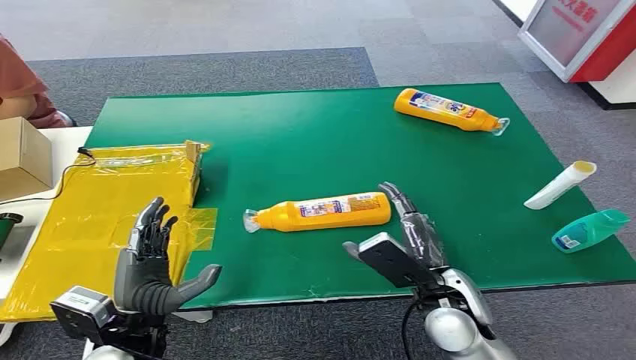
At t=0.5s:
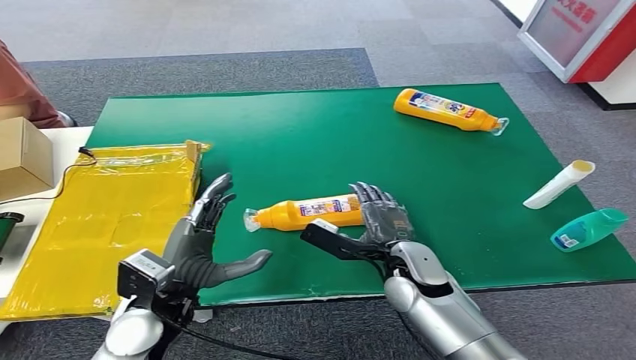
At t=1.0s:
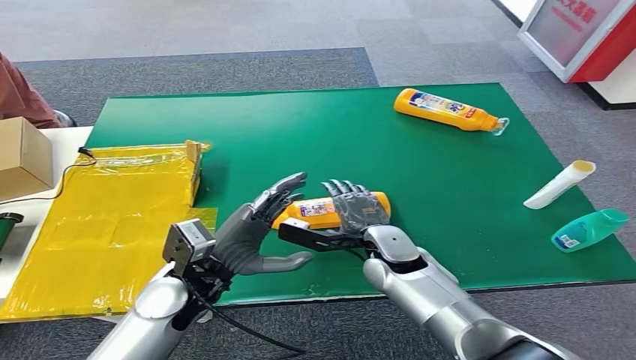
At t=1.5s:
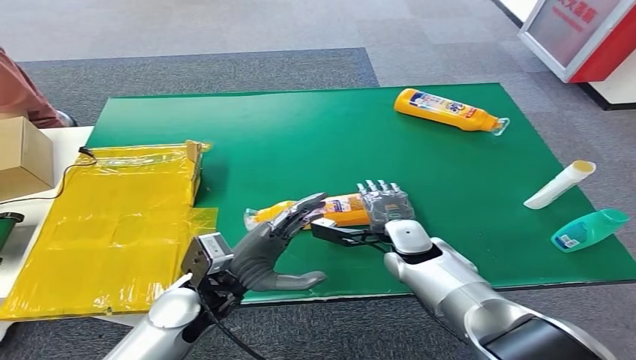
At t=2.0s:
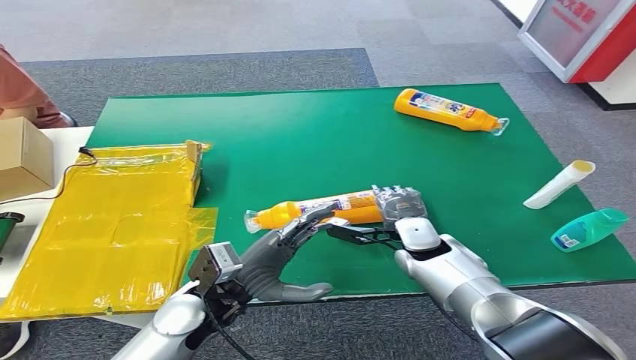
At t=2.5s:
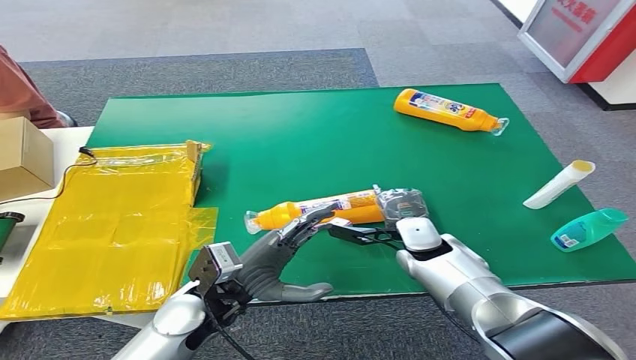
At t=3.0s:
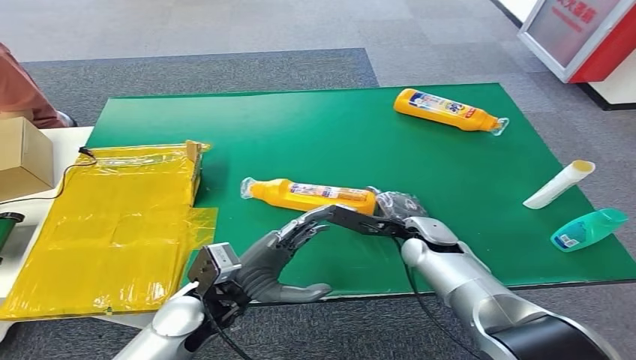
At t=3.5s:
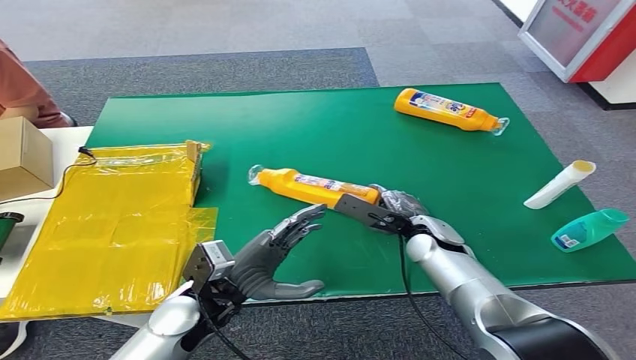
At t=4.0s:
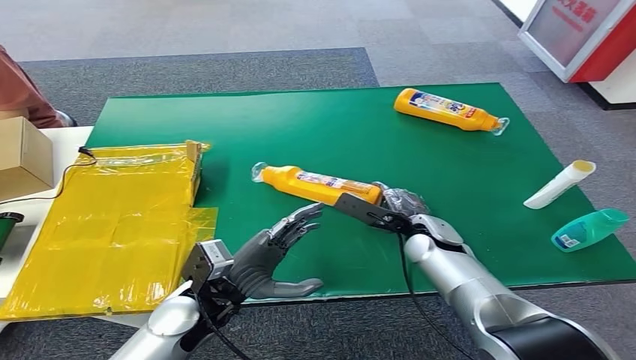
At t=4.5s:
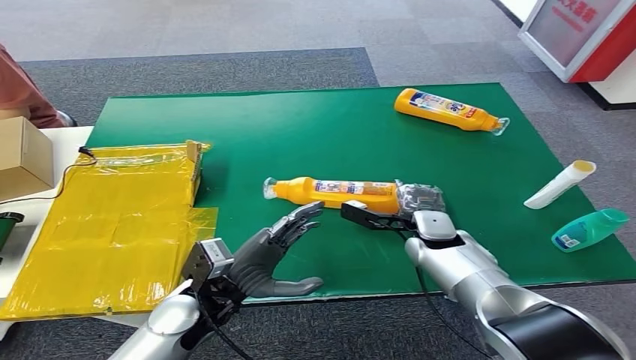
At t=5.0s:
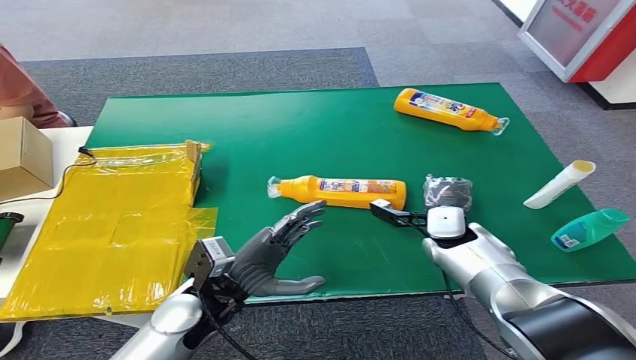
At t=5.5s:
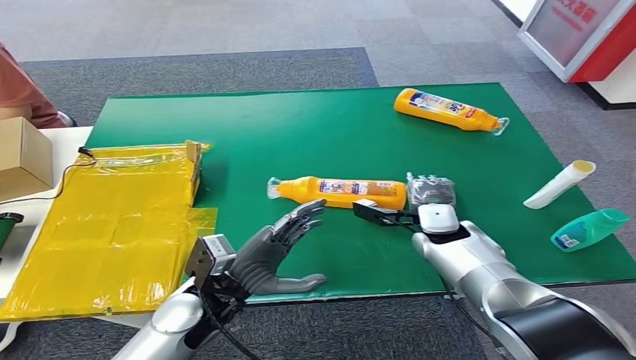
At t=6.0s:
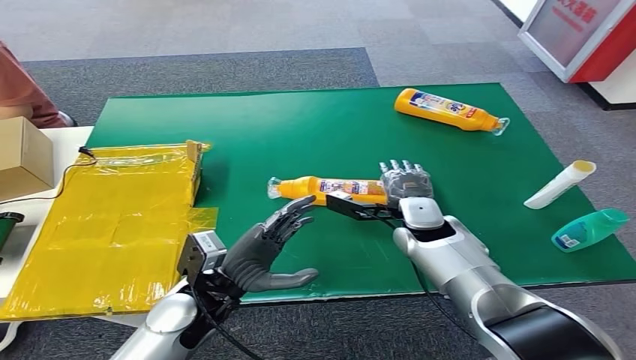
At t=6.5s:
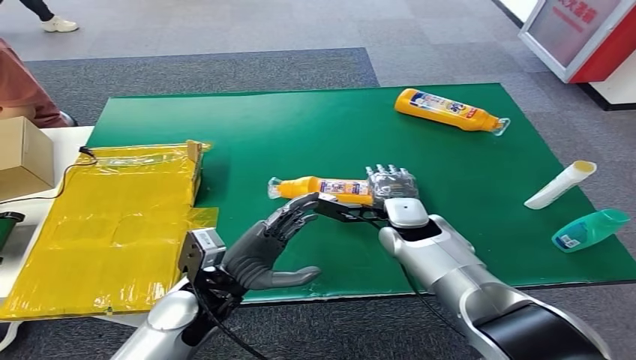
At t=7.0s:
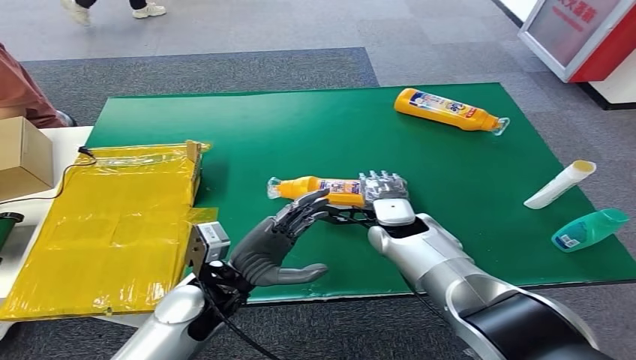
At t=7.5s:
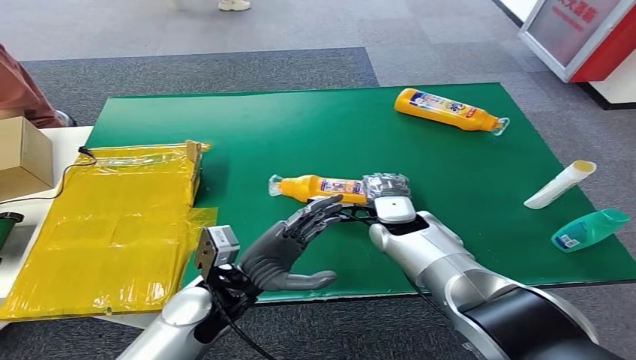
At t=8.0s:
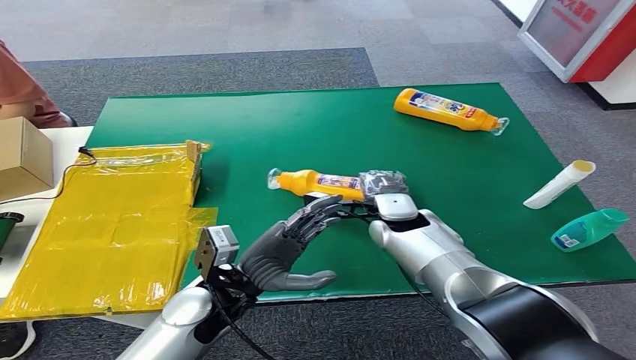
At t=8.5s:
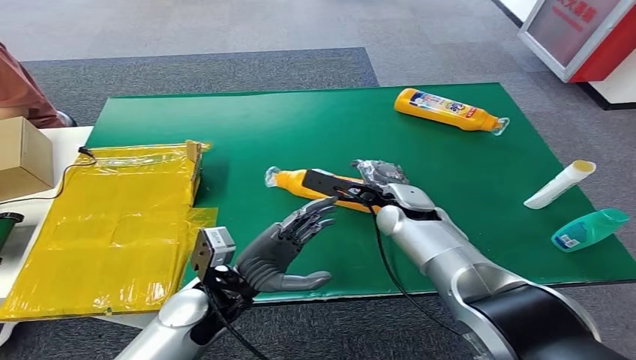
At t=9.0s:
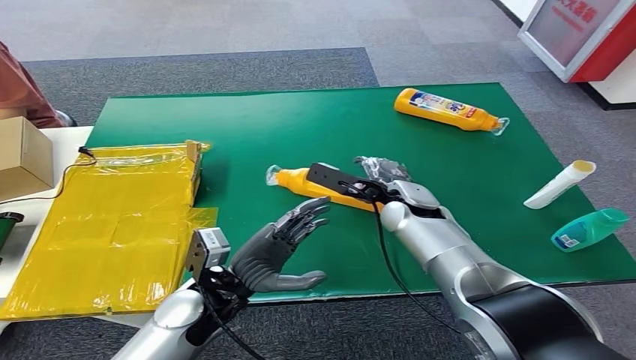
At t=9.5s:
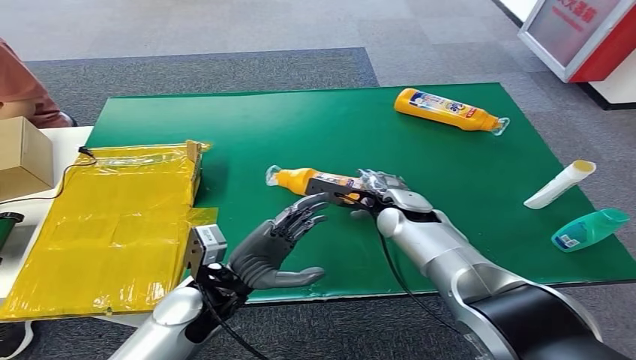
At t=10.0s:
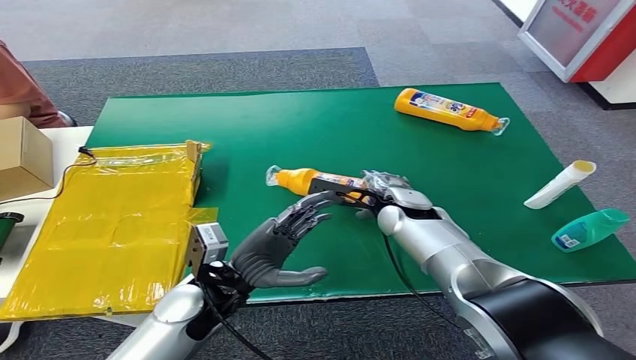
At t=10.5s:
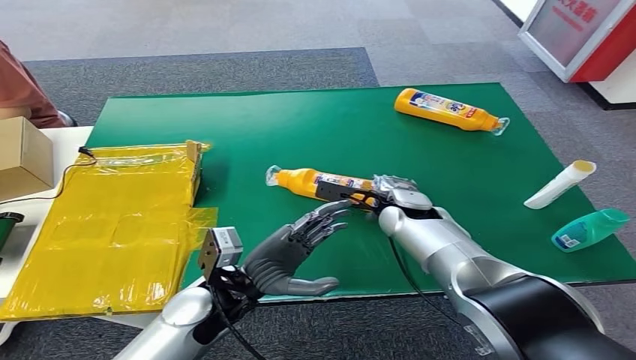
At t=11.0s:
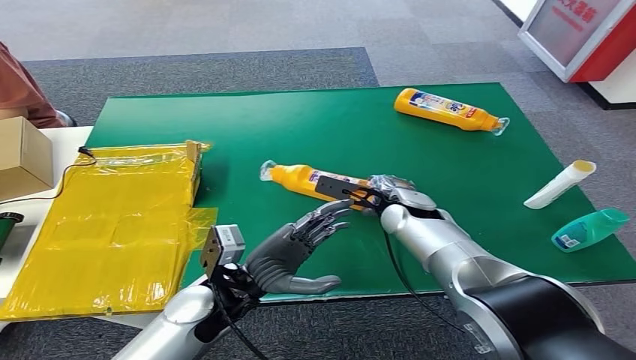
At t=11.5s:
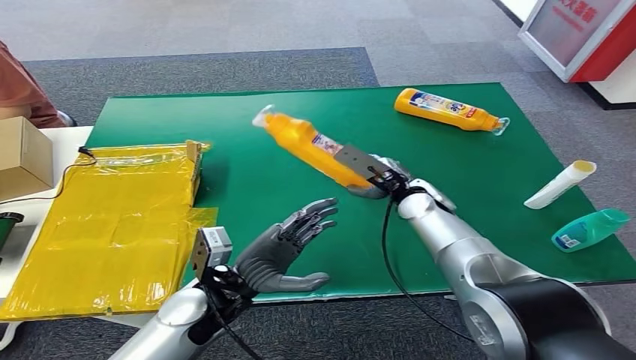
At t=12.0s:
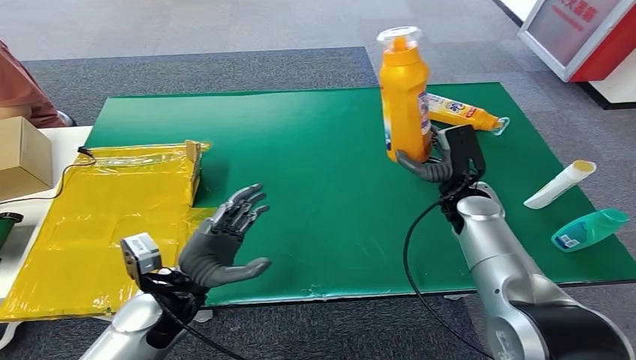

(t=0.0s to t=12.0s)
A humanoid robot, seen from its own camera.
t=4.0s - t=6.0s: The right hand ends up roughly 5 cm from where it was.
t=6.0s - t=8.0s: The hands make only small movements.

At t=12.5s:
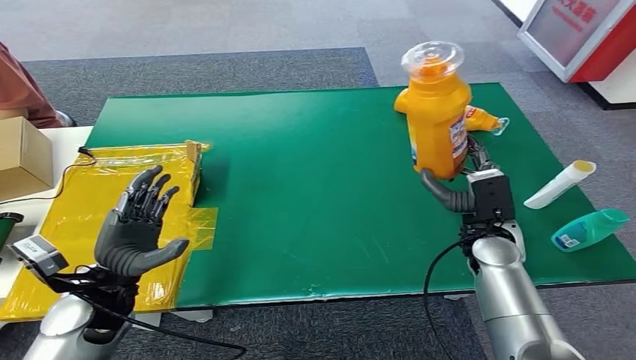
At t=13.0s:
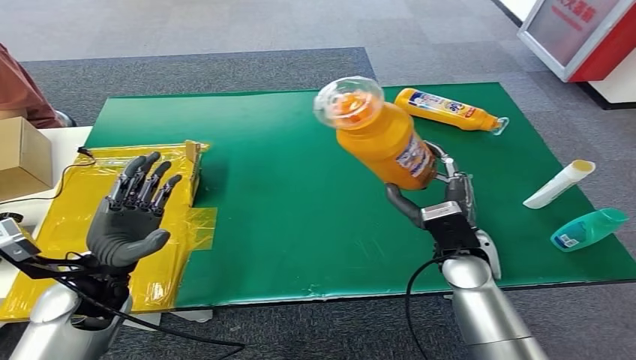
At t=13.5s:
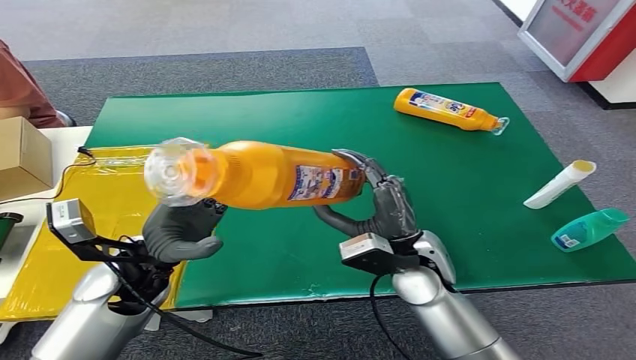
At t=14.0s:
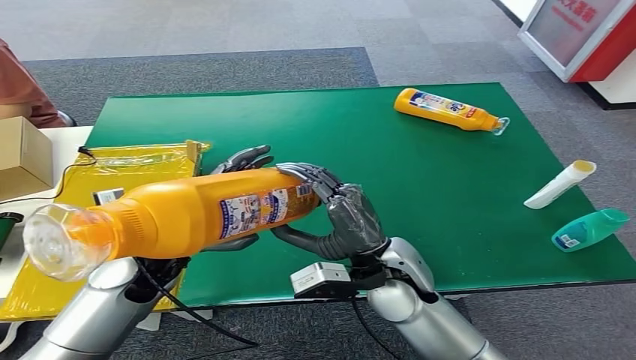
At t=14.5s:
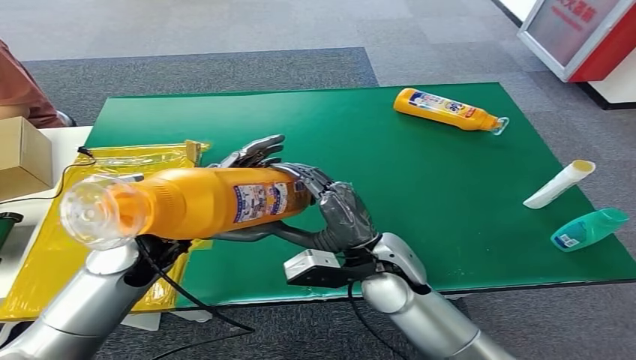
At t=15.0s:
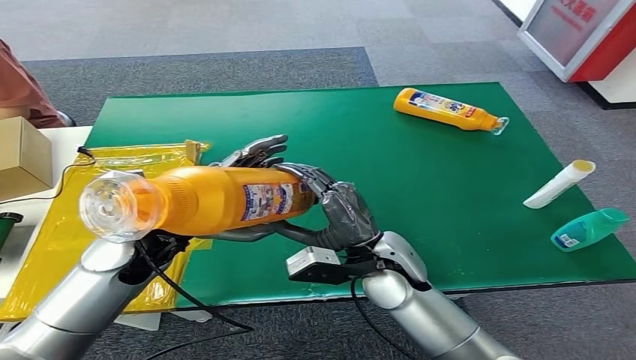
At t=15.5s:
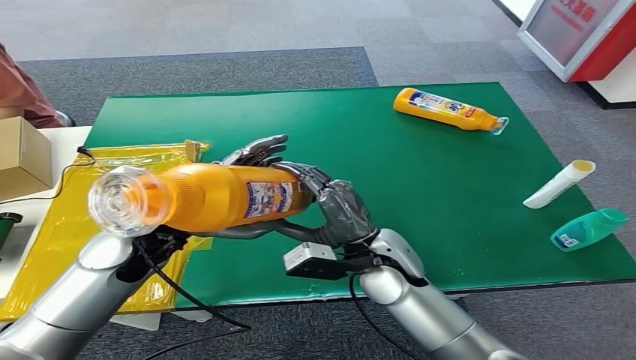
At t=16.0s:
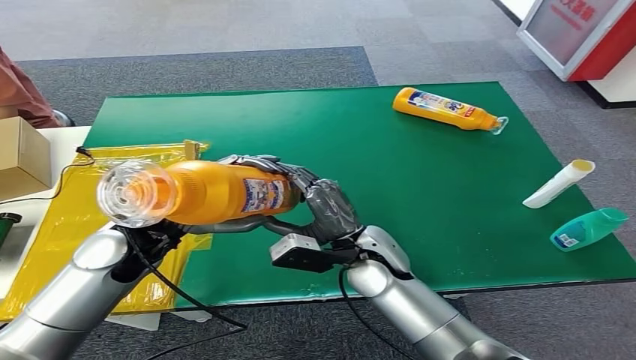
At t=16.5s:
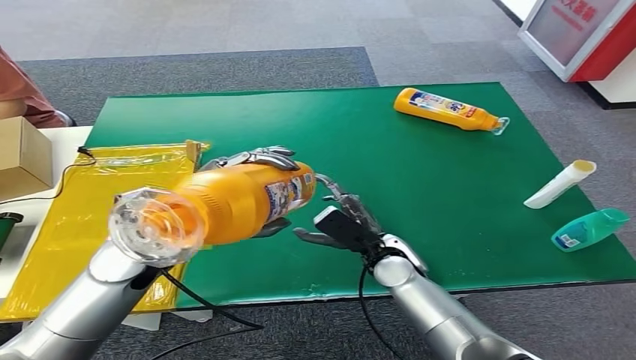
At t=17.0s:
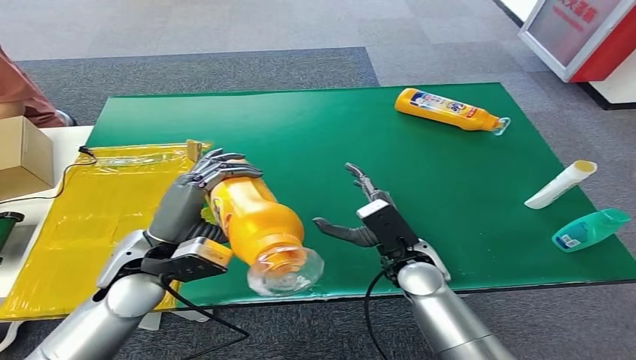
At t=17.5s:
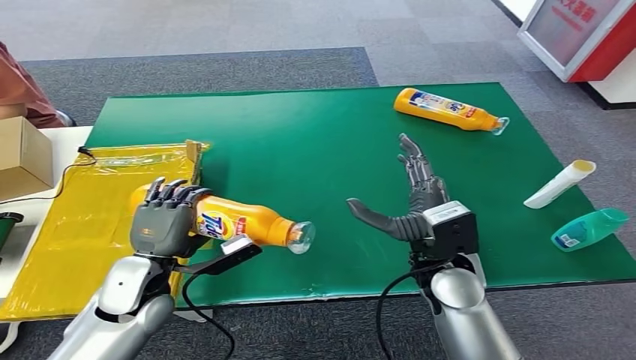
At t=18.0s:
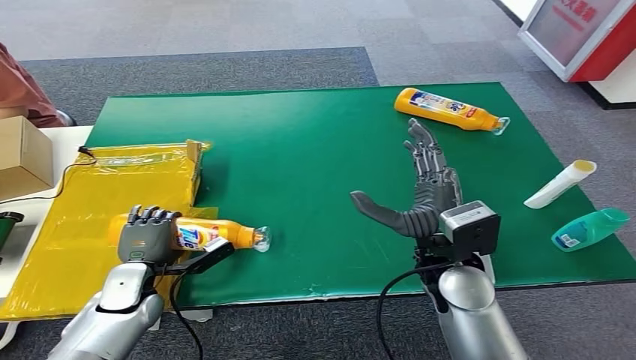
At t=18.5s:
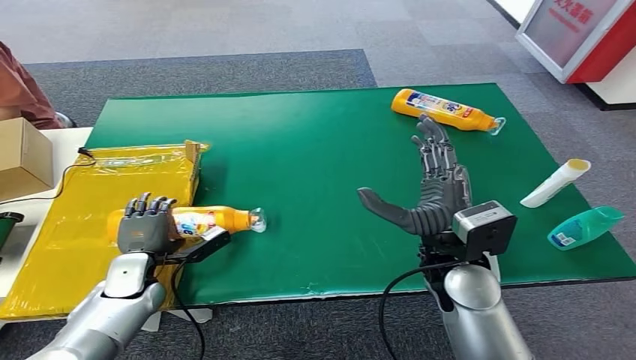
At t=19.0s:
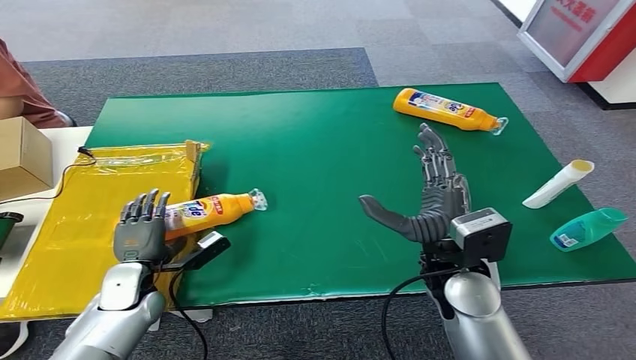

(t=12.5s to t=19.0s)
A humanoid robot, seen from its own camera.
Step, t=12.5s - t=19.0s: Turn the bottle to the front side.

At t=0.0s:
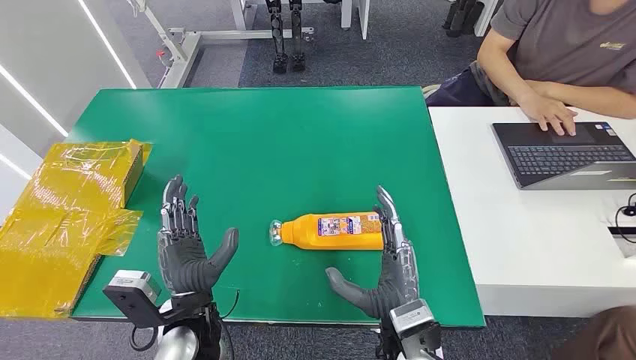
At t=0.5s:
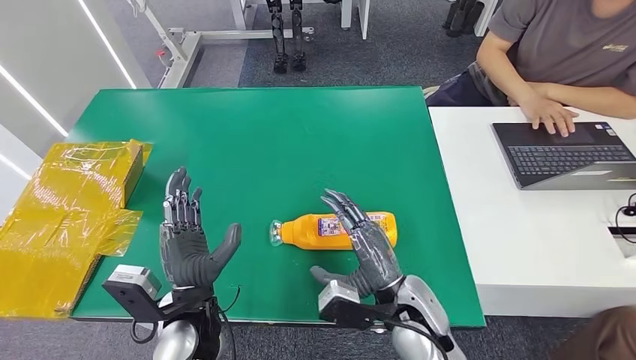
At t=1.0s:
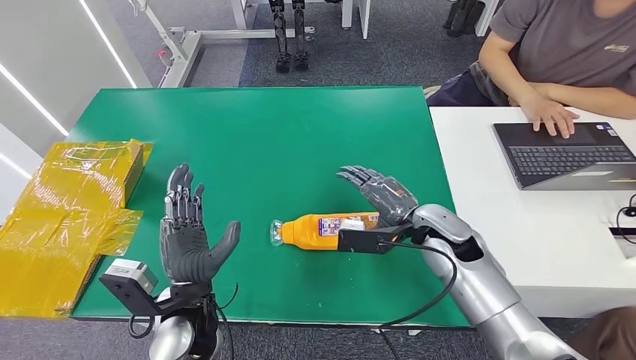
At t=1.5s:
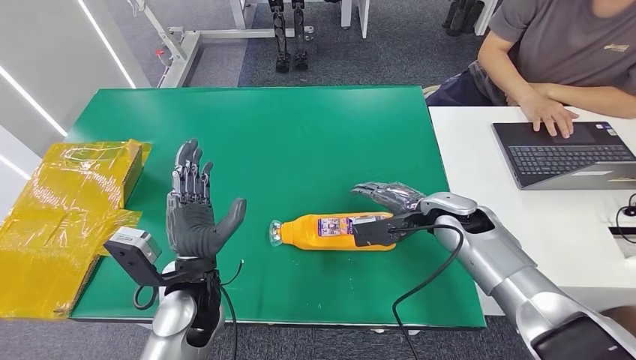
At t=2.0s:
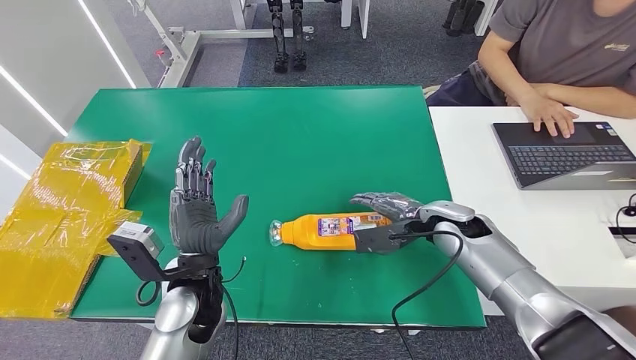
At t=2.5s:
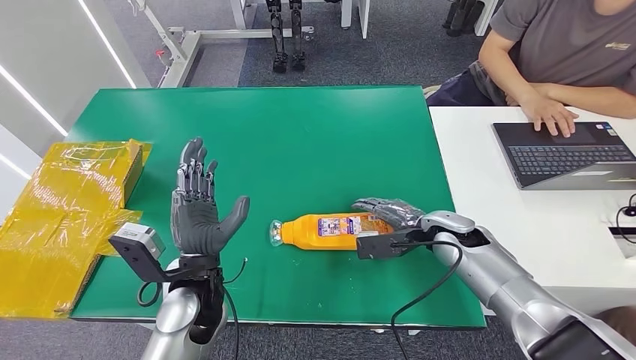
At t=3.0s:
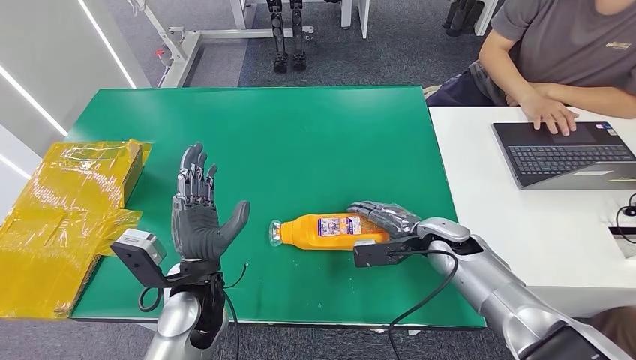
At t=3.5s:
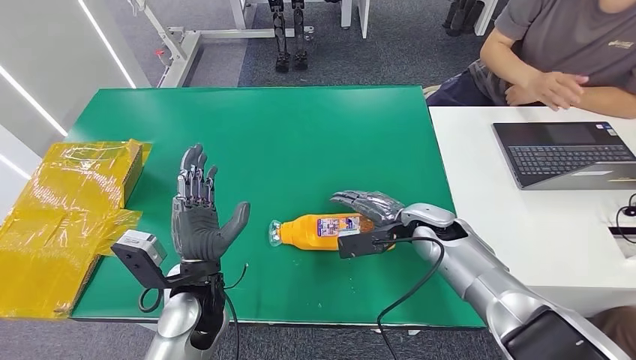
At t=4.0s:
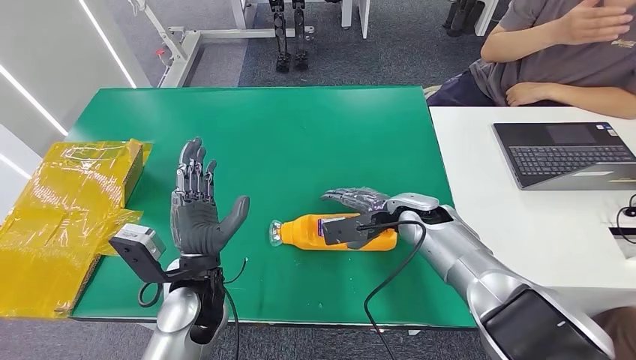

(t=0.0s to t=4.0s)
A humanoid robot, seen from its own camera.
t=2.0s - t=4.0s: The right hand heads to the left, covering about 5 cm.
